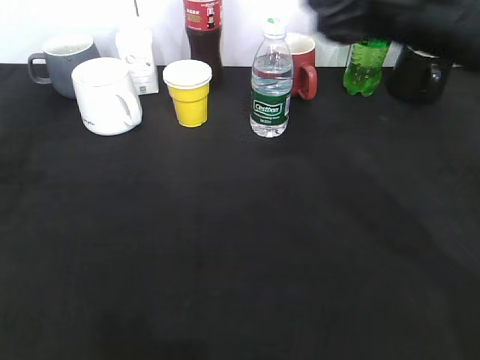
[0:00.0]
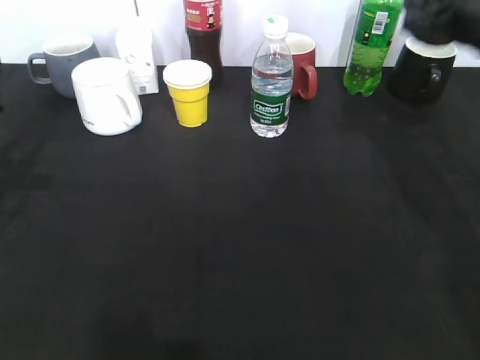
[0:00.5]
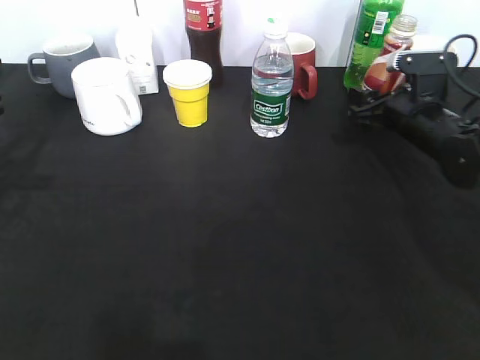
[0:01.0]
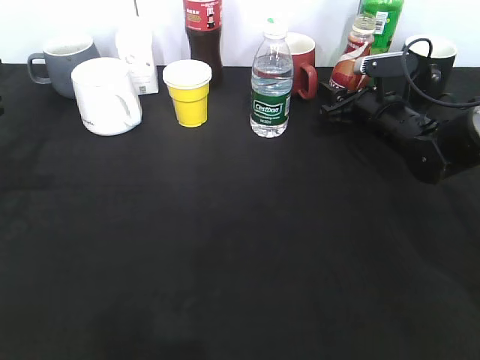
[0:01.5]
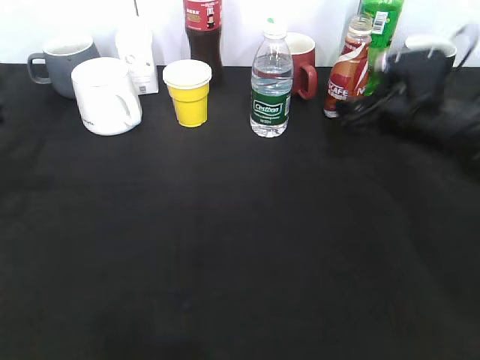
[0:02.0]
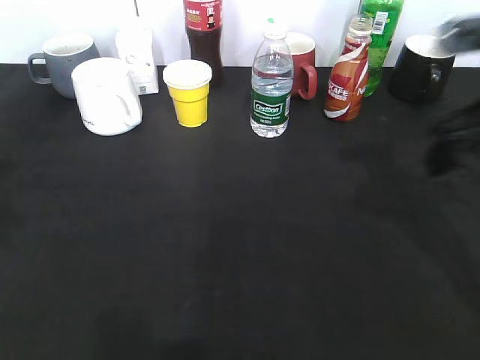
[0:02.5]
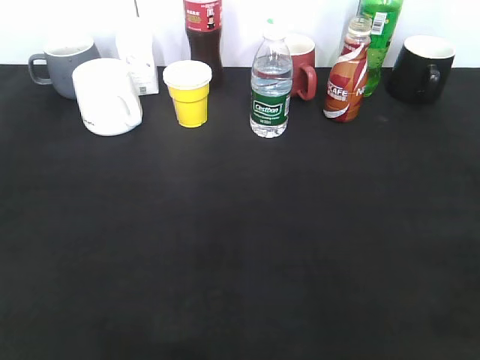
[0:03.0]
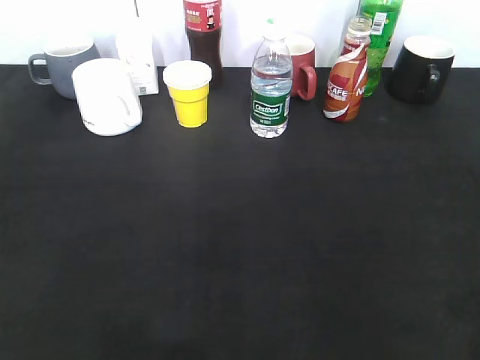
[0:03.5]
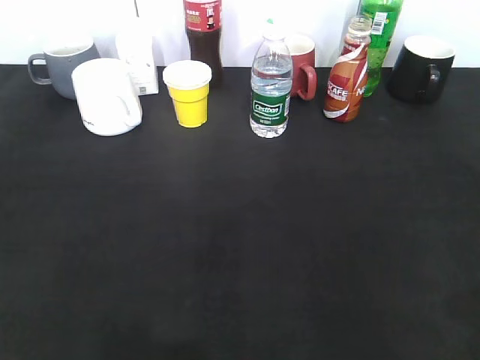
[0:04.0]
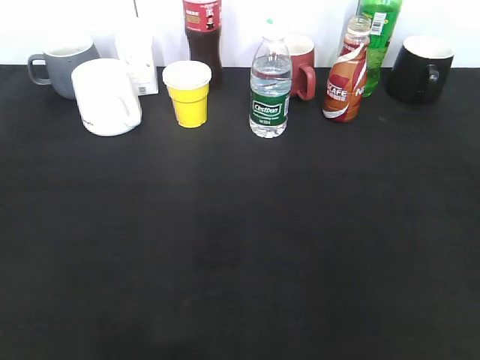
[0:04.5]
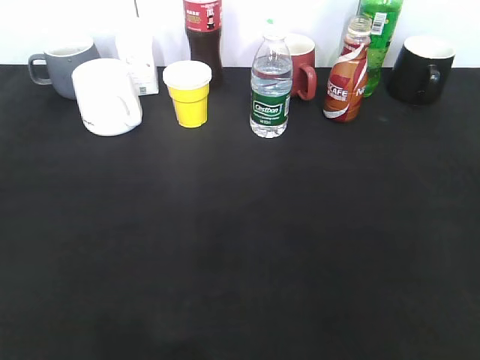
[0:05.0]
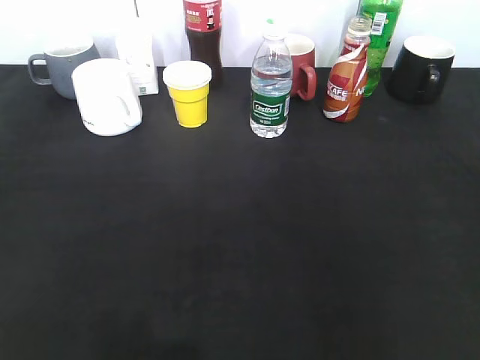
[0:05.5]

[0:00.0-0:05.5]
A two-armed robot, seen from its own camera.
Step, 0:00.0 to 0:02.0: Place the coffee bottle on the table with right gripper.
0:00.0 to 0:02.0: The right gripper heads downward and to the right, covering approximately 15 cm, and opens up.
0:02.0 to 0:03.5: The left gripper goes roughly 20 cm backward, while the right gripper travels backward by approximately 35 cm, and closes its fingers.

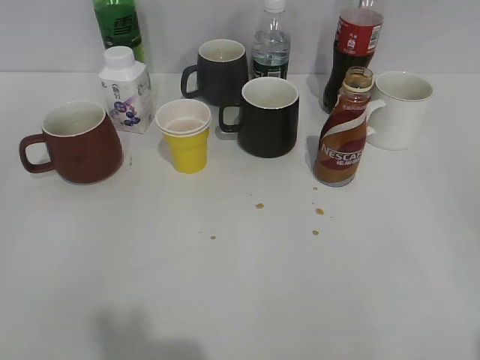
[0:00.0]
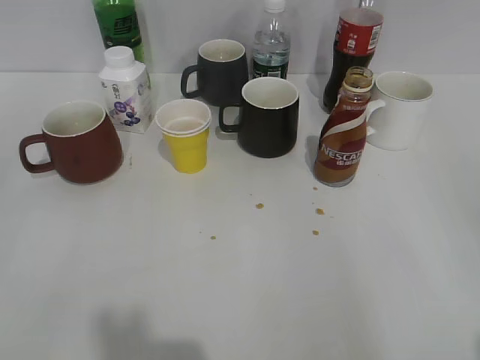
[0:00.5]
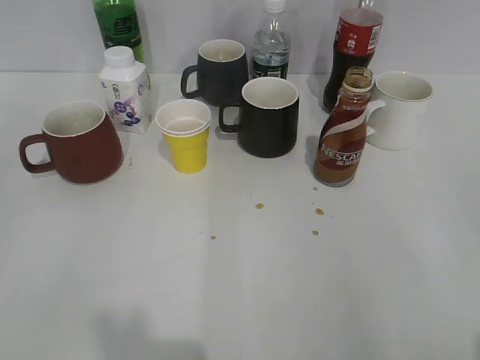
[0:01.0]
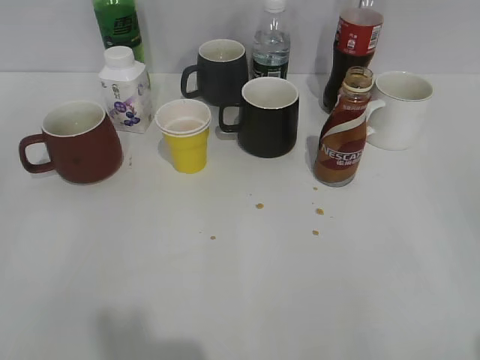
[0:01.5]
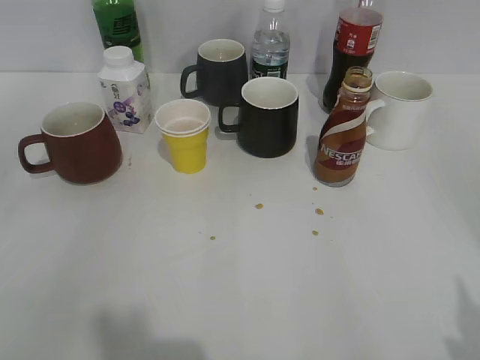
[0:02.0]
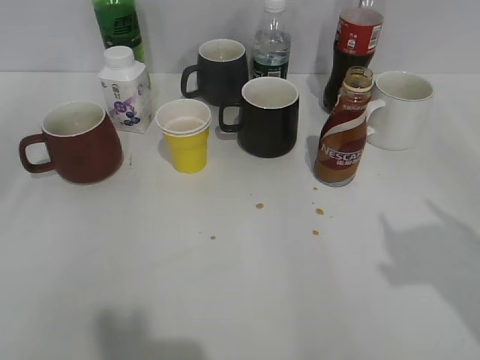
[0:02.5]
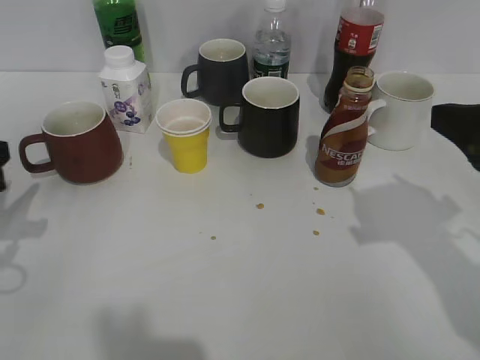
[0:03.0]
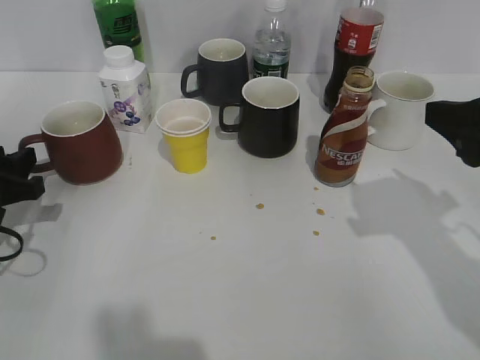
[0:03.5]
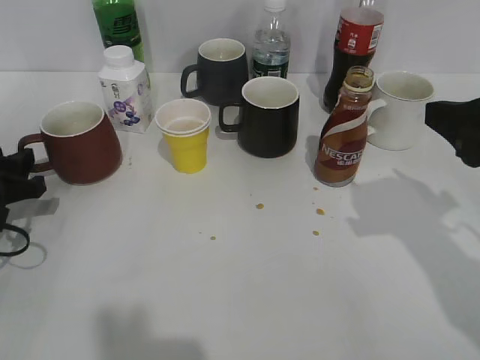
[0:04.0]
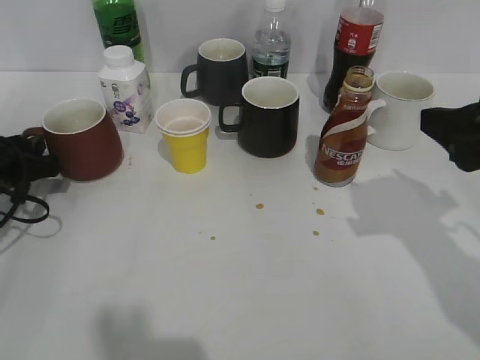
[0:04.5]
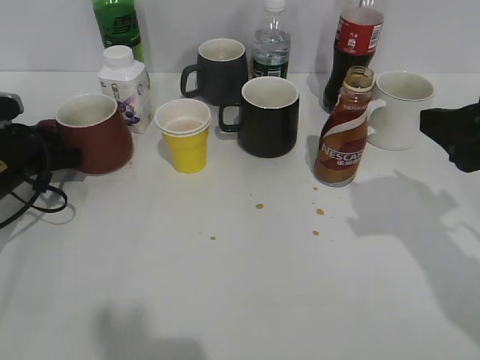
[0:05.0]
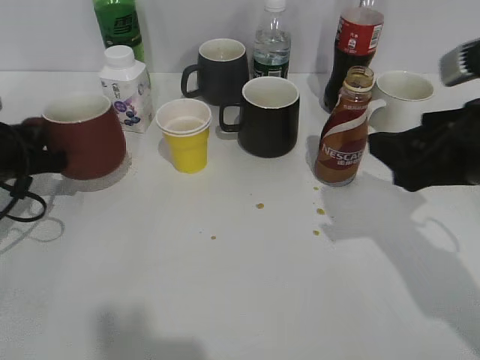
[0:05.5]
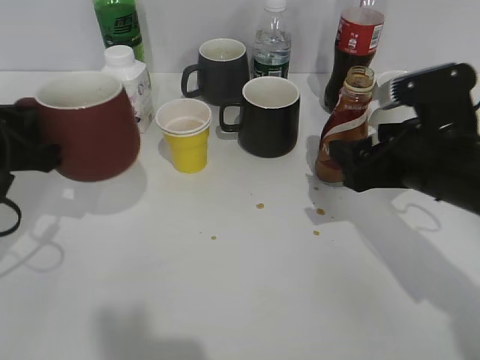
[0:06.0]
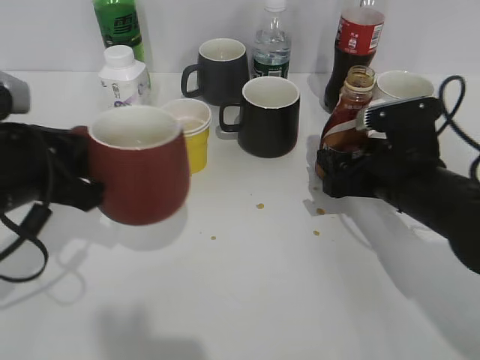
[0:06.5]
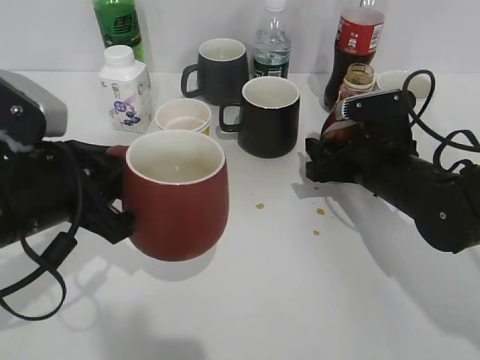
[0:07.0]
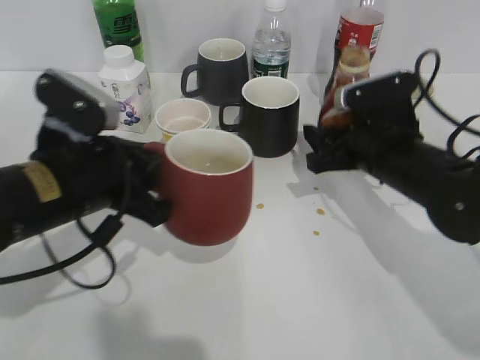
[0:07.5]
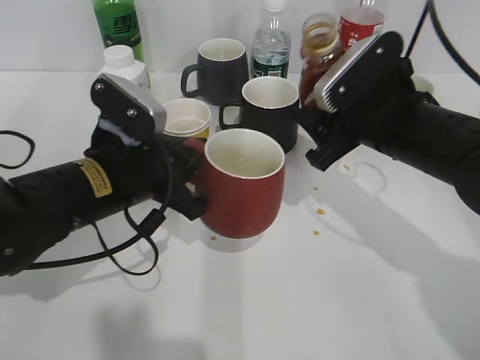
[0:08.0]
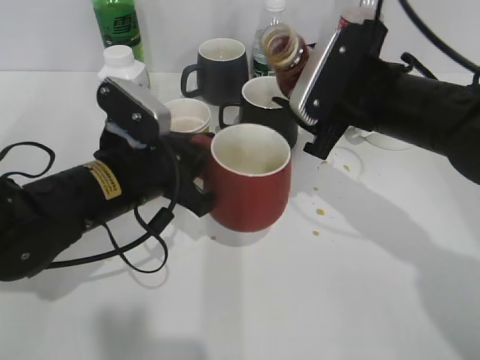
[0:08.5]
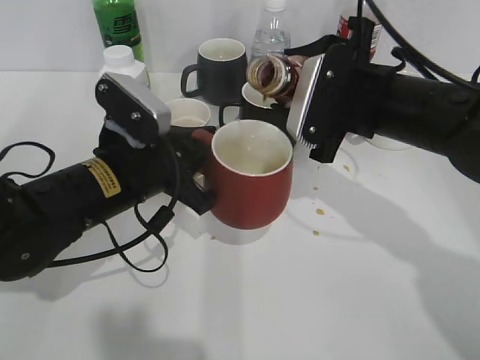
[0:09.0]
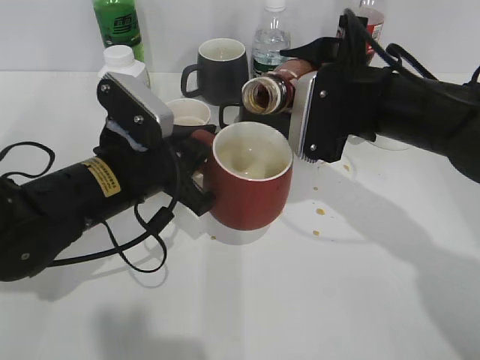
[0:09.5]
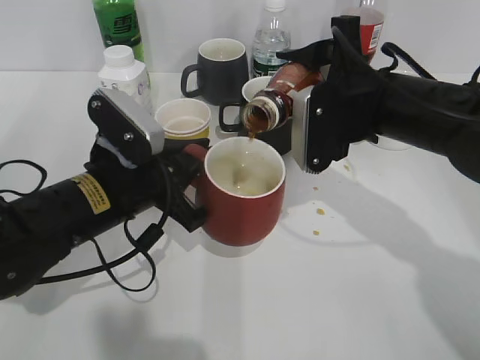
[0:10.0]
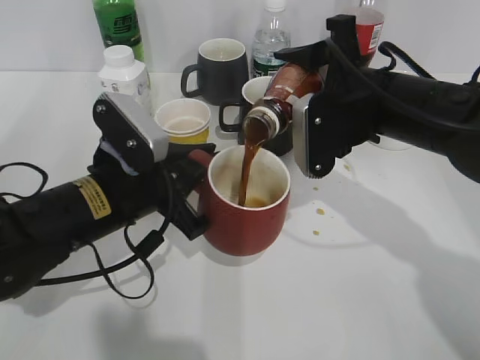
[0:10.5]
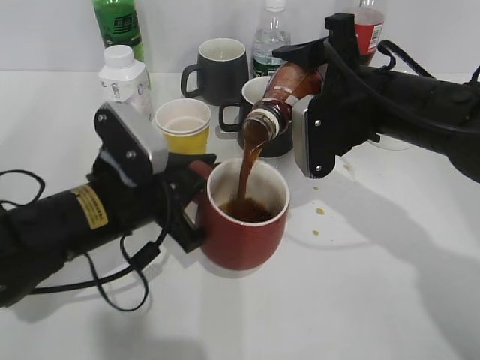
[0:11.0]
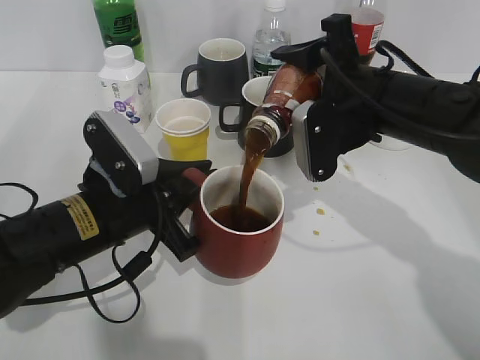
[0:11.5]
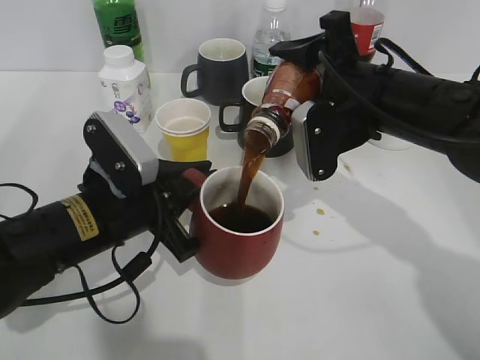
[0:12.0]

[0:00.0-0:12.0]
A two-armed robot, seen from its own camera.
Step, 0:02.0 to 0:05.0: Grasp the red cup with left gripper.
Step, 0:05.5 to 0:07.0: Grasp the bottle with coffee with right gripper.
0:02.0 to 0:04.0: The left gripper travels forward and downward by about 30 cm. The right gripper moves forward, roughly 20 cm.
0:04.0 to 0:06.0: The left gripper moves upward, some 10 cm, and closes. The right gripper shifts some 10 cm downward, to the left and forward.
0:06.0 to 0:08.0: The right gripper reaches roughly 5 cm downward, then returns, and closes its fingers, while the left gripper is displaced to the right by about 15 cm.

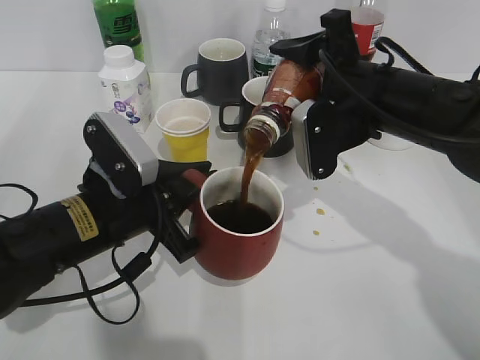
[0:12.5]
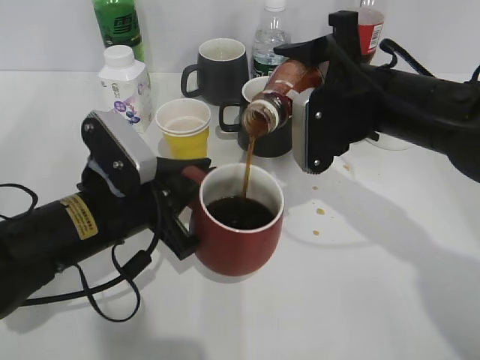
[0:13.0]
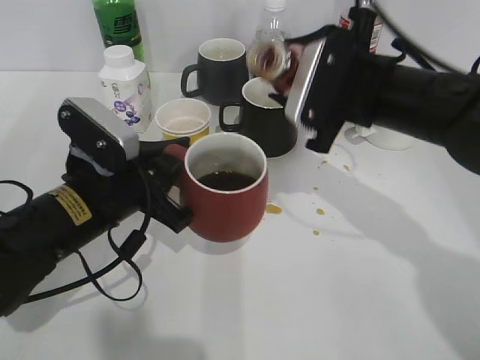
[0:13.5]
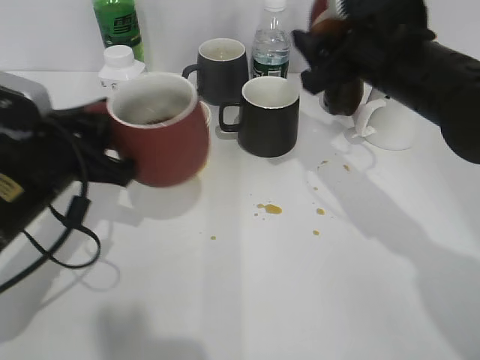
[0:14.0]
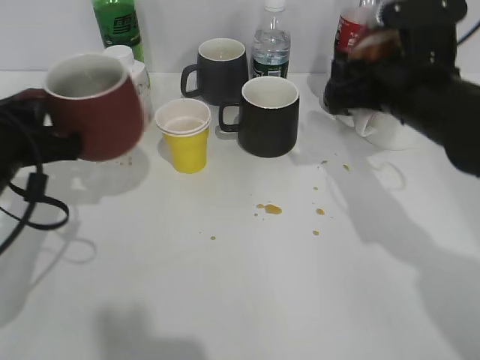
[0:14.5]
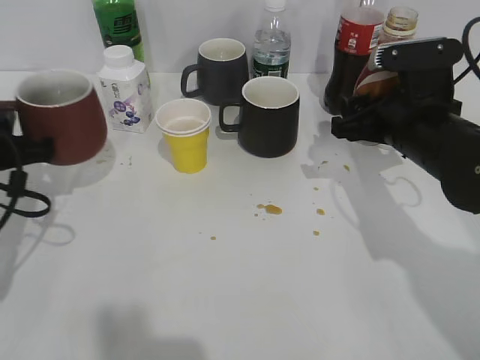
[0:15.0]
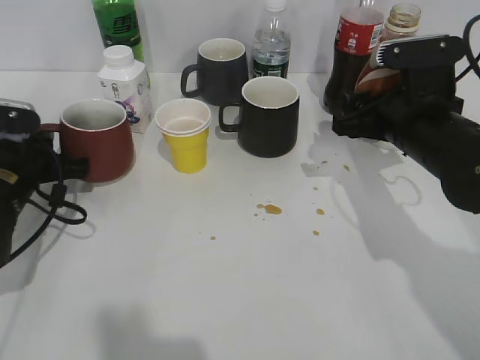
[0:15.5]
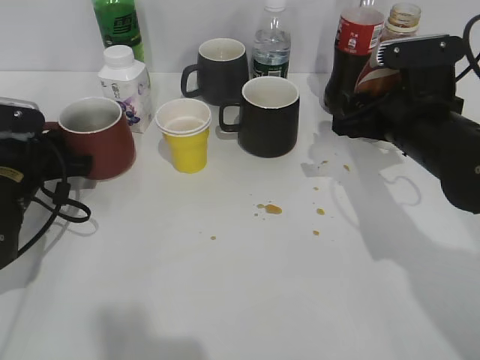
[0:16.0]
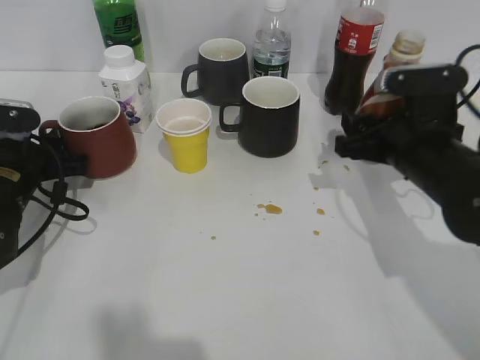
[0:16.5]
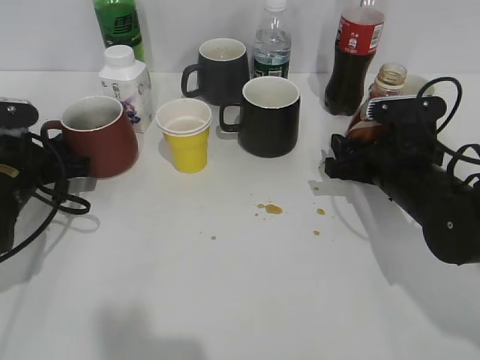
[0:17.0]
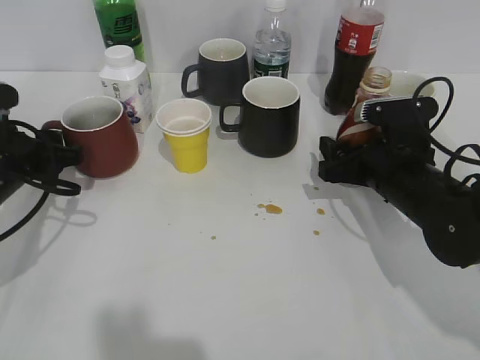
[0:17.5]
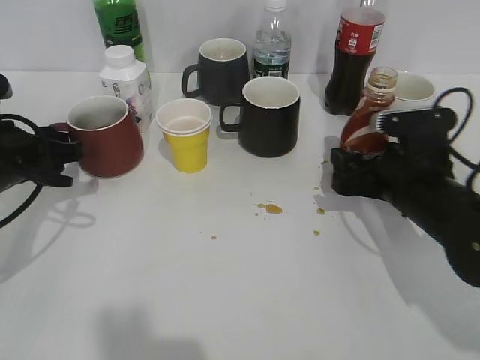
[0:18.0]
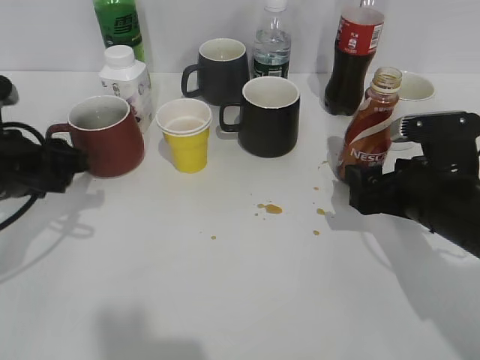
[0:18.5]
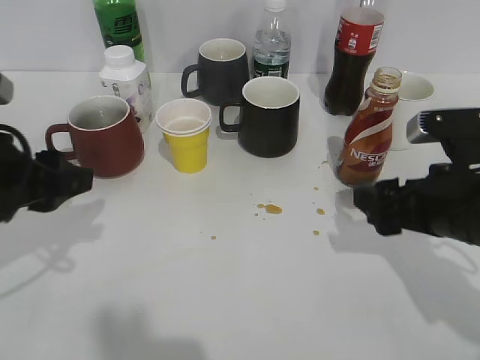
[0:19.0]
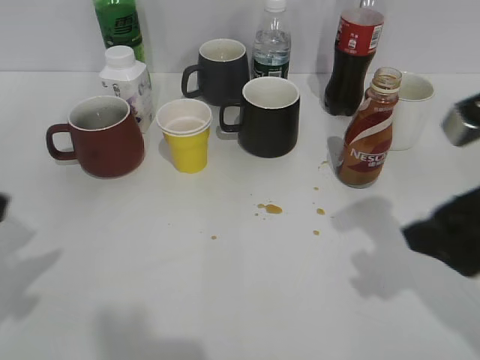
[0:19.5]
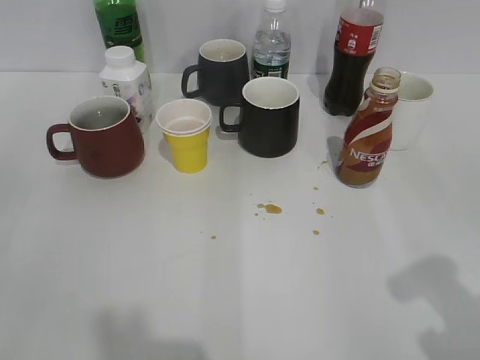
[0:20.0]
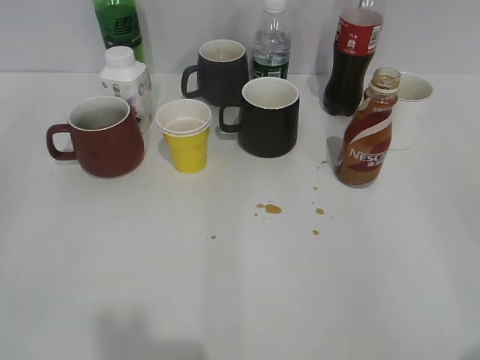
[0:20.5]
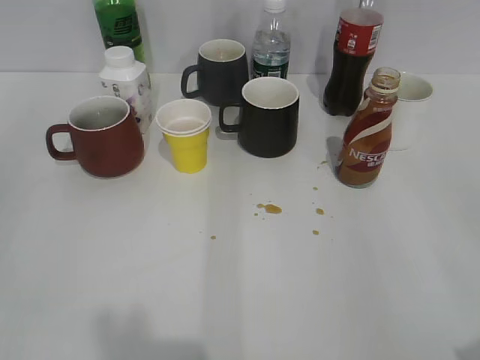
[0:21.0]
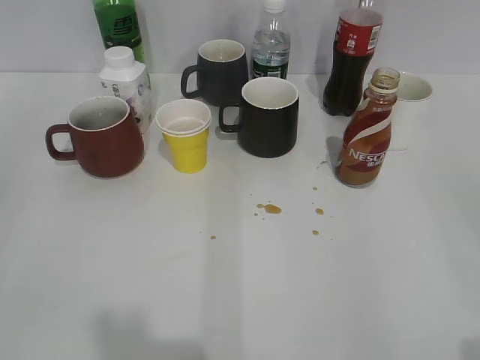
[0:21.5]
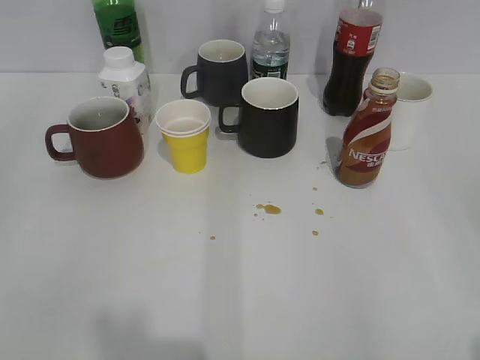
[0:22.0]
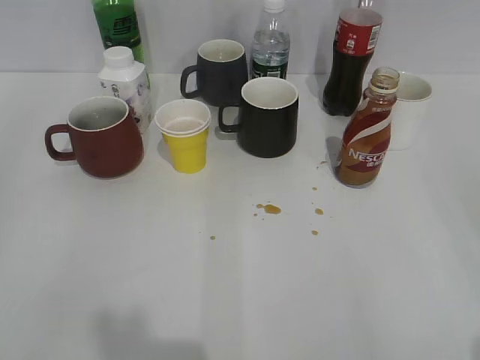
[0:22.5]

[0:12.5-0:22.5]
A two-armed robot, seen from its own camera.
Step, 0:13.5 to 0:18.5: Place the coffee bottle on the table with right gripper.
0:12.5 to 0:14.5: The left gripper heads to the left, covering roughly 10 cm.
0:14.5 to 0:16.5: The right gripper travels downward by roughly 5 cm. Meanwhile the left gripper moves downward and forward, approximately 10 cm, and opens its fingers.
0:16.5 to 0:18.5: The right gripper changes place by roughly 5 cm, and opens its fingers, while the left gripper moves upward, some 5 cm.
0:18.5 to 0:20.5: The right gripper is displaced backward, upward and to the right by about 30 cm. The left gripper heads backward and upward, covering about 25 cm.
